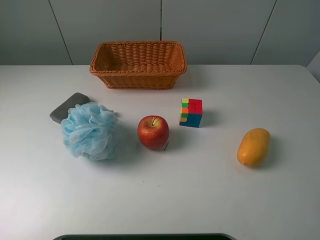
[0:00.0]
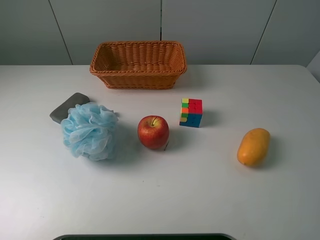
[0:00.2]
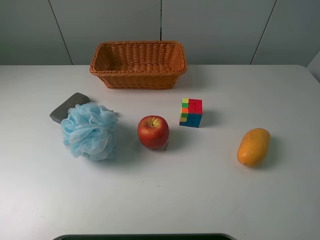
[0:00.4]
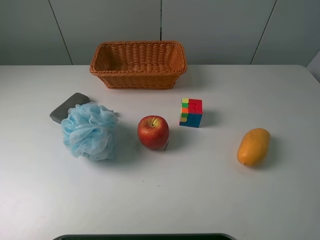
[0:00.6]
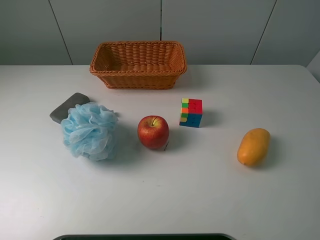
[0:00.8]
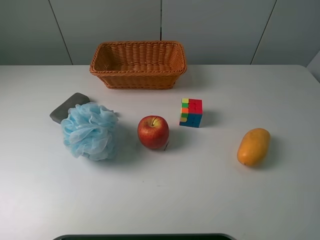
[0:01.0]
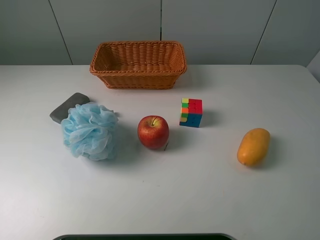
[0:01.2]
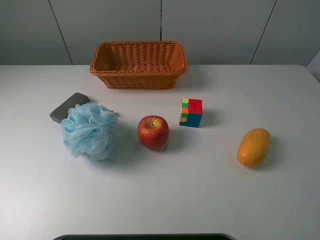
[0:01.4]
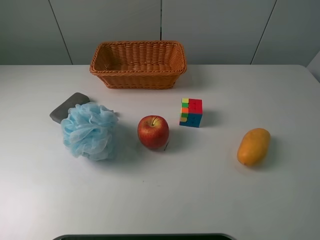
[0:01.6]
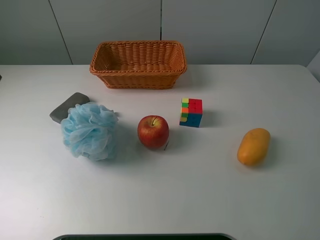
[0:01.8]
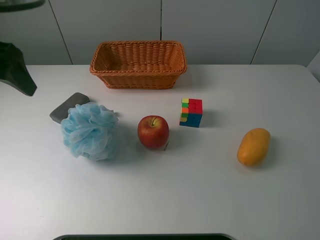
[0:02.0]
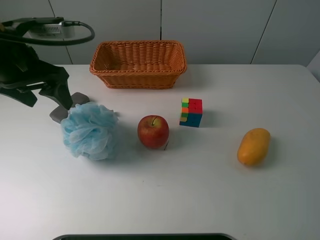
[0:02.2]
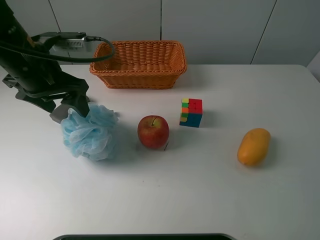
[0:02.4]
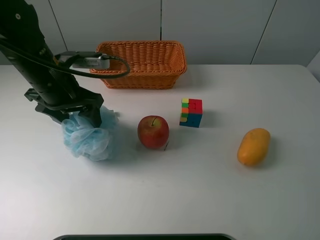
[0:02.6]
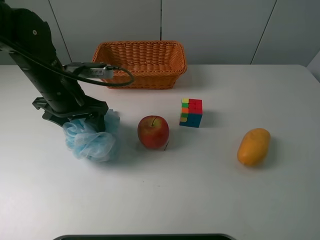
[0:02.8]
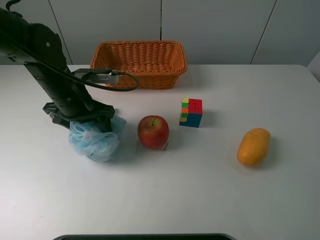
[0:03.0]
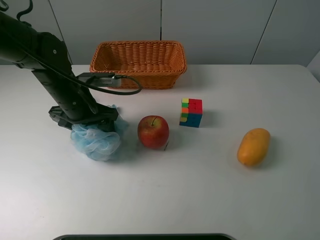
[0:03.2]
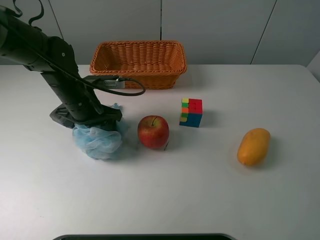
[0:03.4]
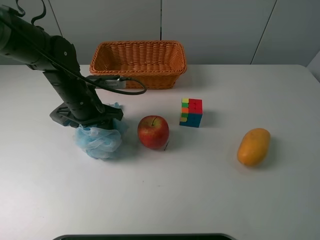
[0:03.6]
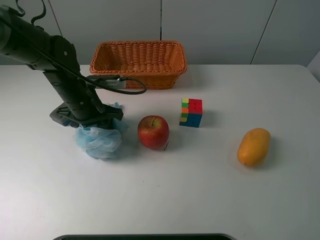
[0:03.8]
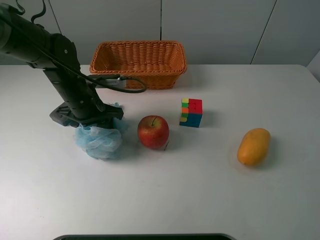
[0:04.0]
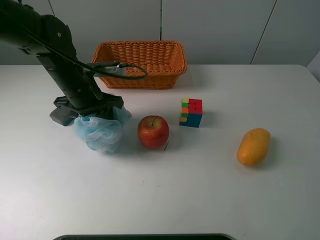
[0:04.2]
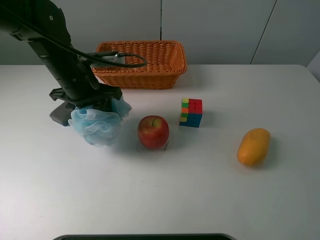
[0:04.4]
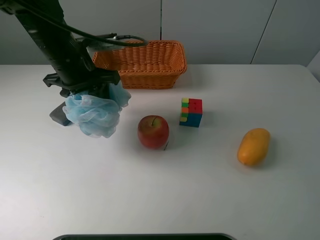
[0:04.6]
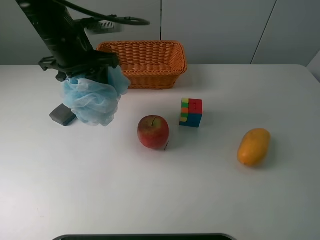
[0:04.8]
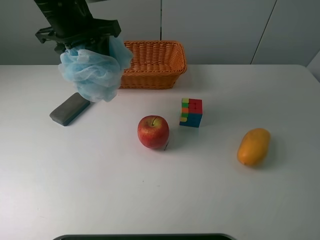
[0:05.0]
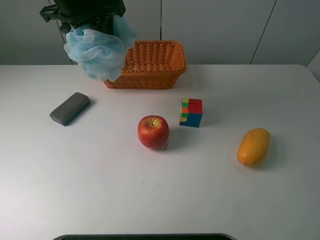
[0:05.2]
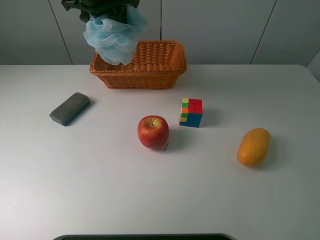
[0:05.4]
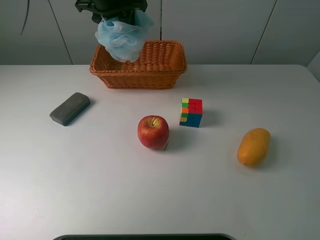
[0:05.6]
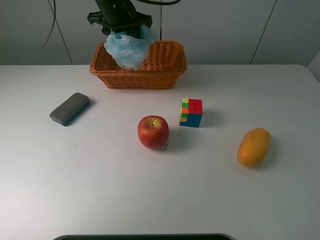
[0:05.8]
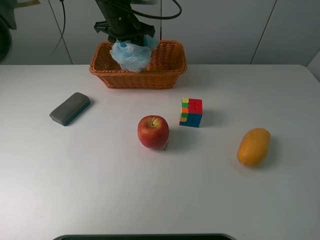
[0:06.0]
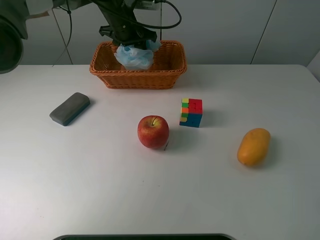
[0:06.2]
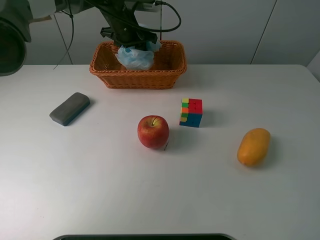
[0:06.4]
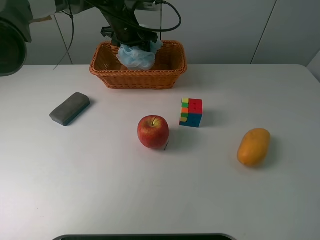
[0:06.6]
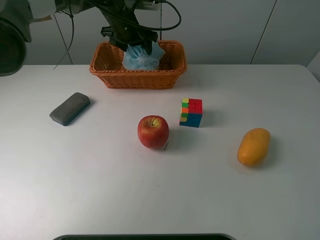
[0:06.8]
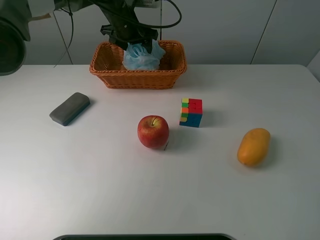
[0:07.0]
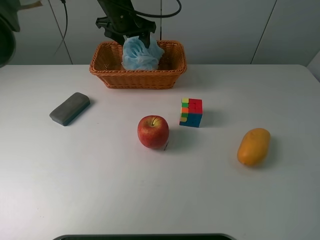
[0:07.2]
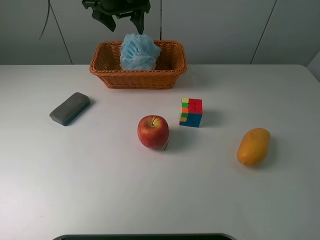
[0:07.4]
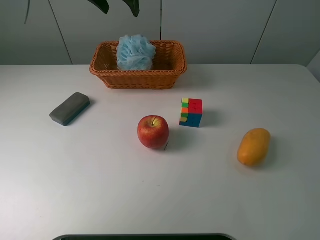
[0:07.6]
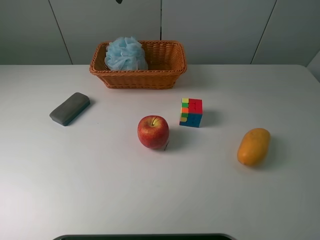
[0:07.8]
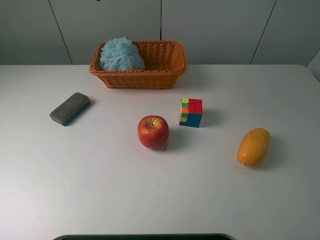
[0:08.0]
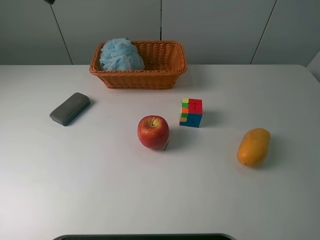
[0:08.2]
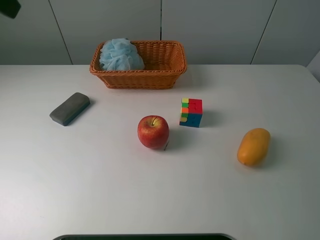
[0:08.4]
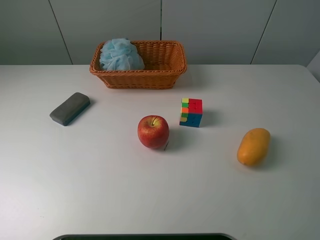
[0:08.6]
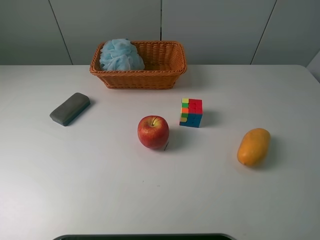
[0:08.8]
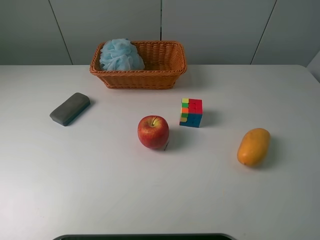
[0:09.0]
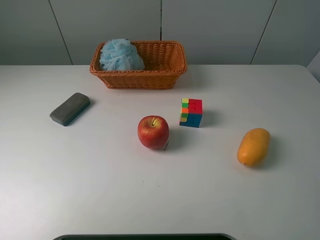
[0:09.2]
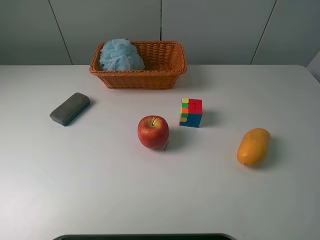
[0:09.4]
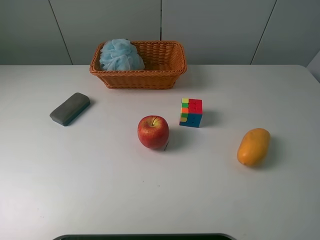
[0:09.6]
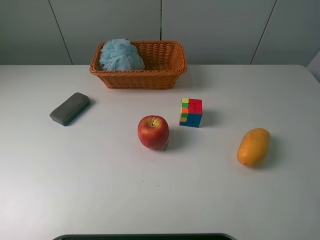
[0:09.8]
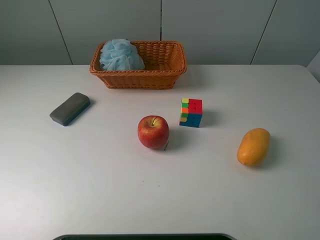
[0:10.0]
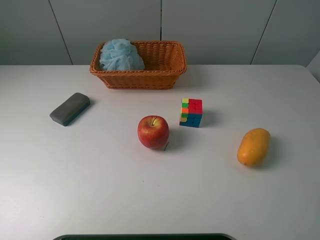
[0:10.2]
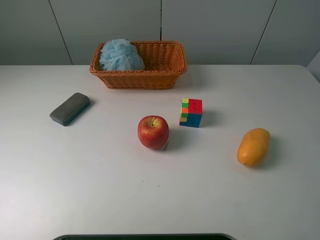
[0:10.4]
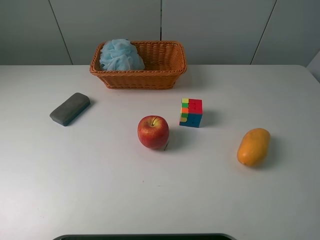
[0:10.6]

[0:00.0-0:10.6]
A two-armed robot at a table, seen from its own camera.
Task of the whole recording: use a picker to grab the item closest to the apple and place it in the basket.
Step, 0:00.0 to 0:03.8: Grasp the shower sphere with the left gripper.
Step, 0:04.0 to 0:07.2: Place the shower sphere into the basket with the left gripper.
0:01.6 to 0:03.0: The left gripper heads downward, to the right and forward, covering roughly 30 cm.
0:03.0 to 0:04.6: The left gripper heads upward, covering approximately 10 cm, and closes up.
0:04.6 to 0:06.0: The left gripper travels forward and to the right by roughly 20 cm.
0:06.0 to 0:07.6: The left gripper goes about 10 cm upward, and opens its fingers.
0:07.6 to 0:09.0: The left gripper is displaced backward and to the left by about 40 cm.
